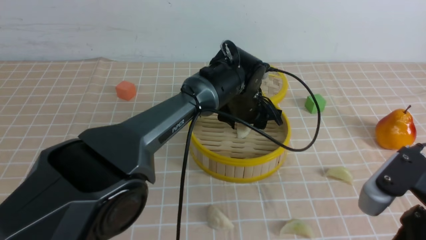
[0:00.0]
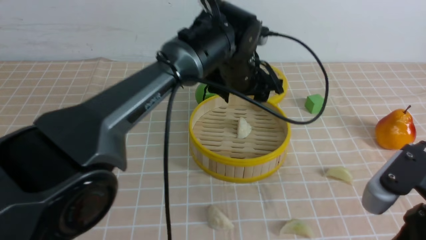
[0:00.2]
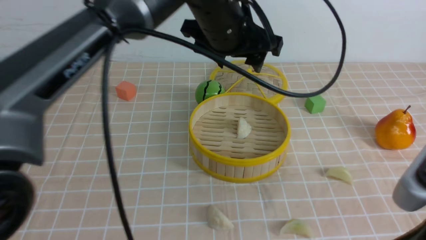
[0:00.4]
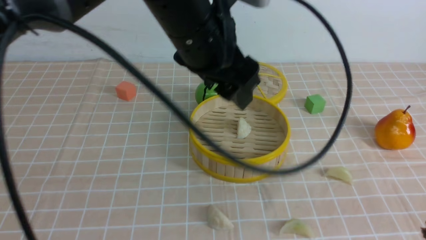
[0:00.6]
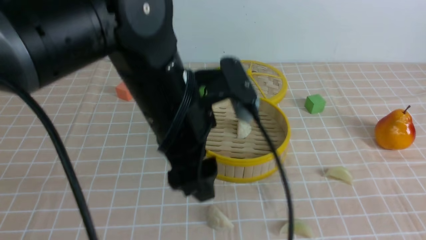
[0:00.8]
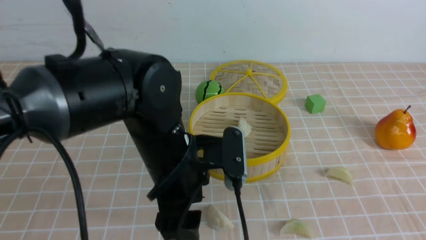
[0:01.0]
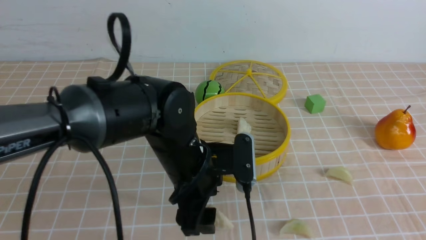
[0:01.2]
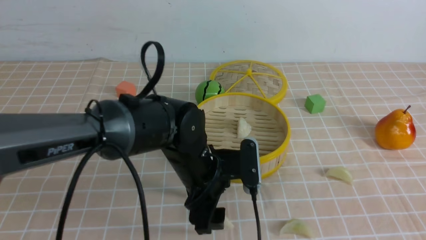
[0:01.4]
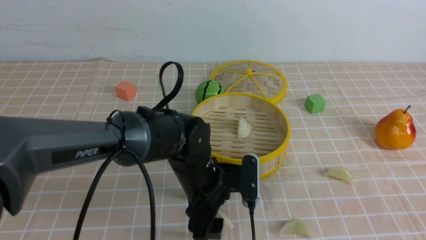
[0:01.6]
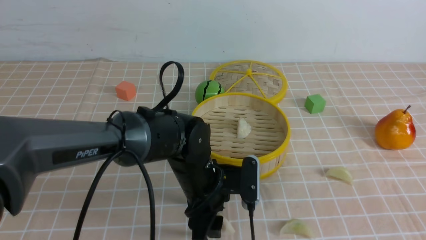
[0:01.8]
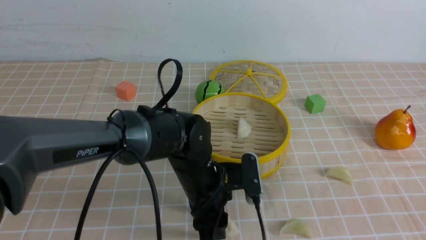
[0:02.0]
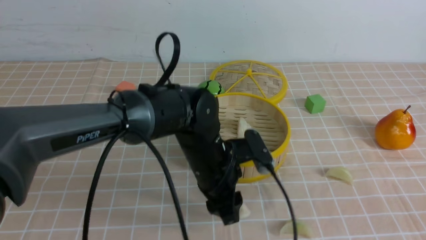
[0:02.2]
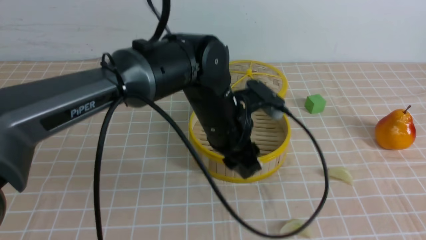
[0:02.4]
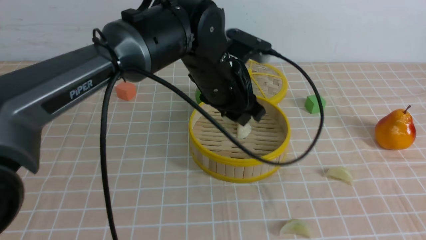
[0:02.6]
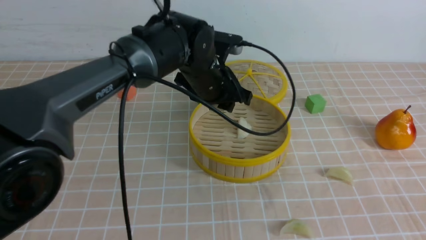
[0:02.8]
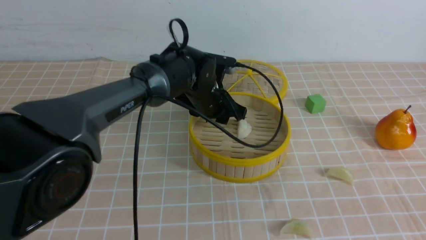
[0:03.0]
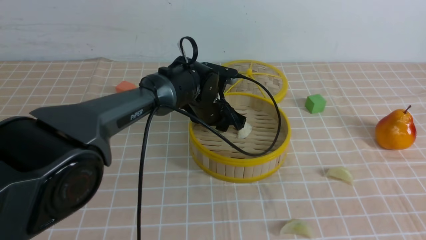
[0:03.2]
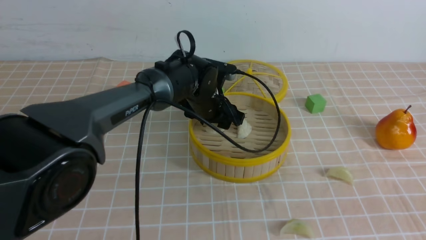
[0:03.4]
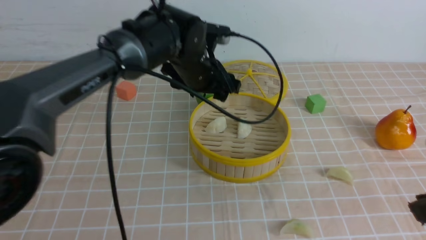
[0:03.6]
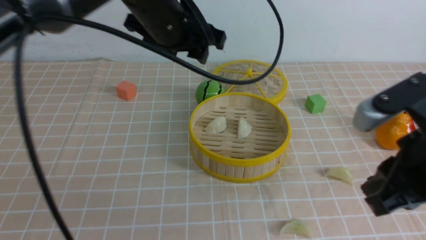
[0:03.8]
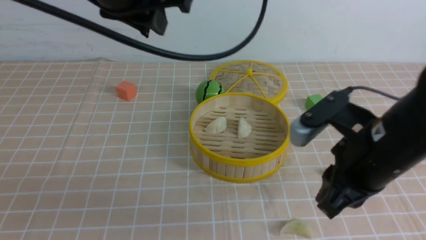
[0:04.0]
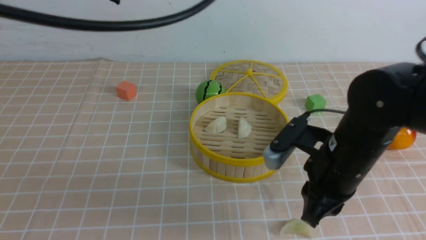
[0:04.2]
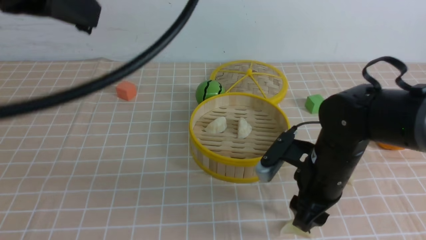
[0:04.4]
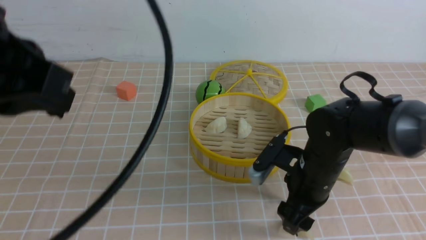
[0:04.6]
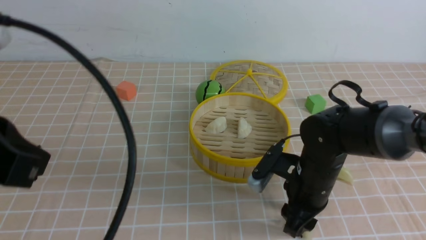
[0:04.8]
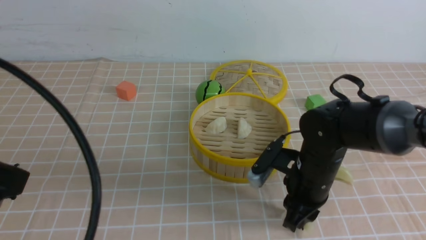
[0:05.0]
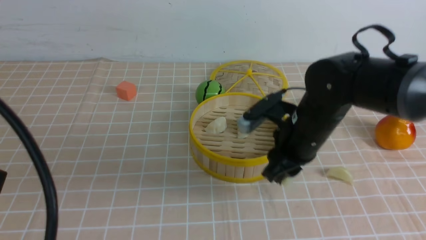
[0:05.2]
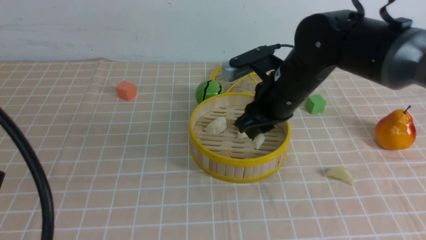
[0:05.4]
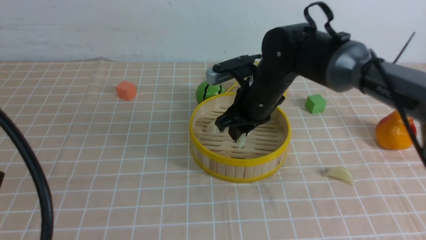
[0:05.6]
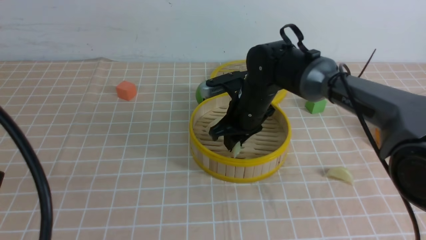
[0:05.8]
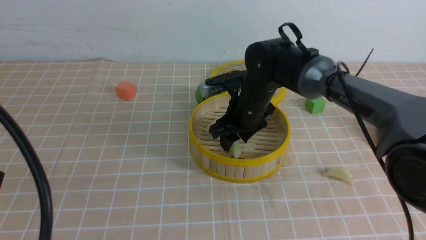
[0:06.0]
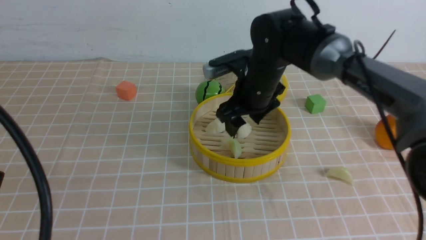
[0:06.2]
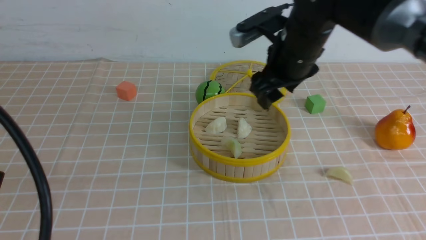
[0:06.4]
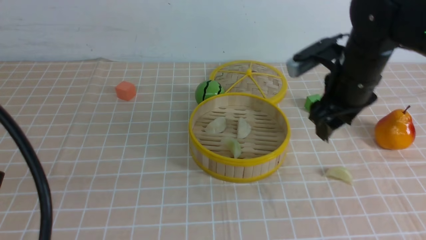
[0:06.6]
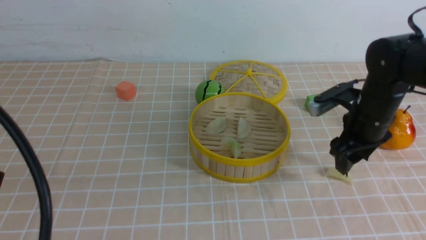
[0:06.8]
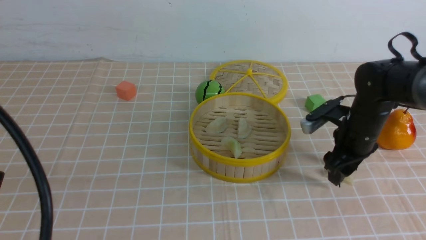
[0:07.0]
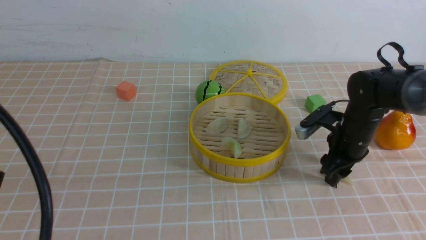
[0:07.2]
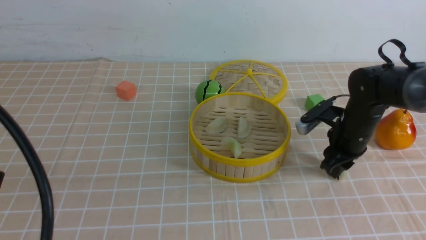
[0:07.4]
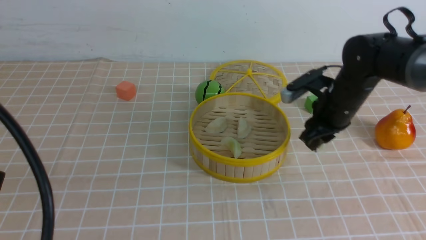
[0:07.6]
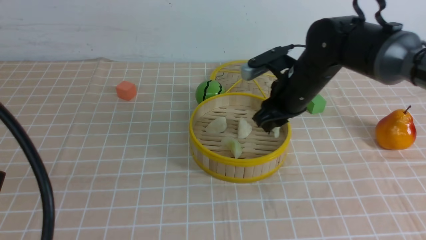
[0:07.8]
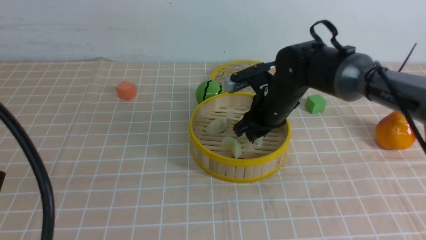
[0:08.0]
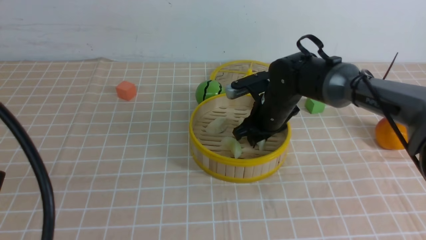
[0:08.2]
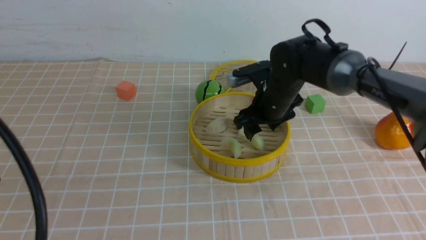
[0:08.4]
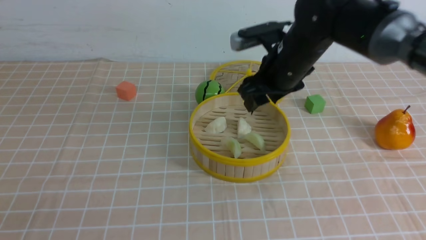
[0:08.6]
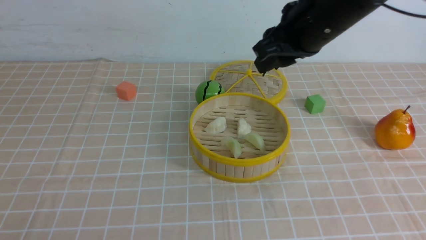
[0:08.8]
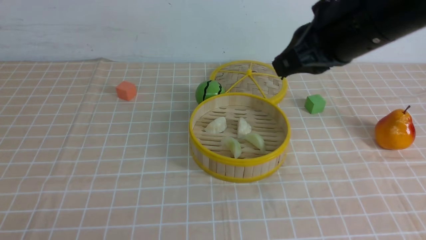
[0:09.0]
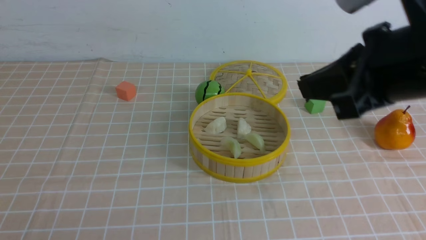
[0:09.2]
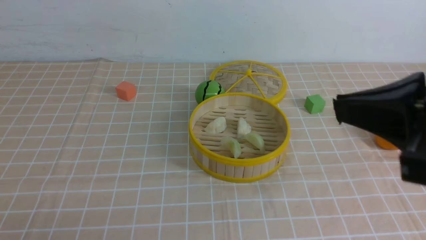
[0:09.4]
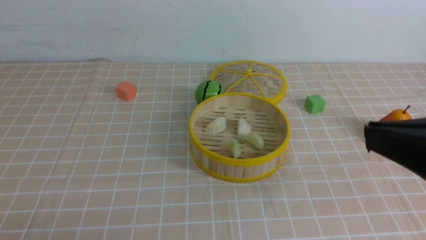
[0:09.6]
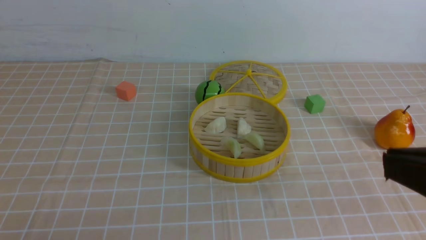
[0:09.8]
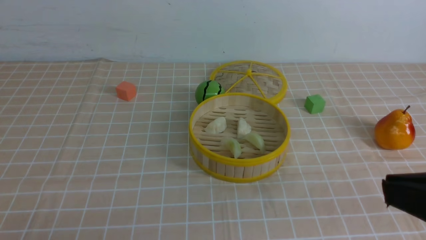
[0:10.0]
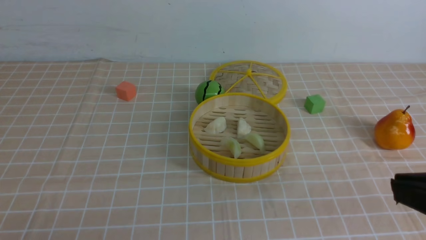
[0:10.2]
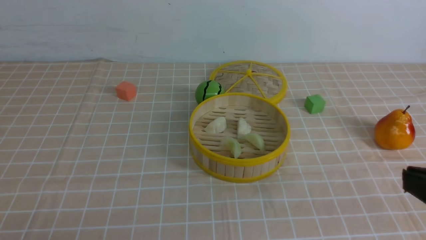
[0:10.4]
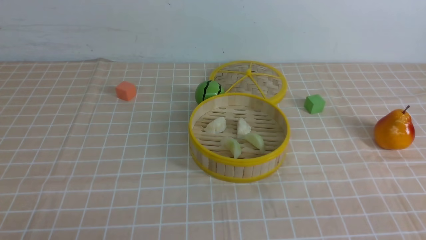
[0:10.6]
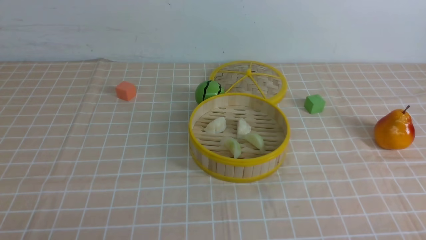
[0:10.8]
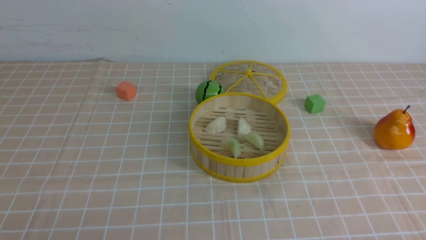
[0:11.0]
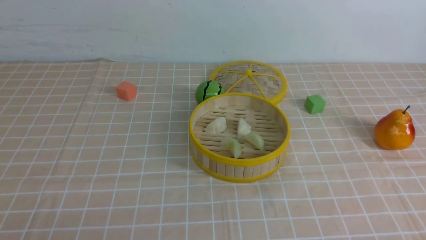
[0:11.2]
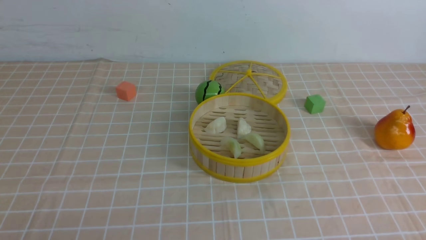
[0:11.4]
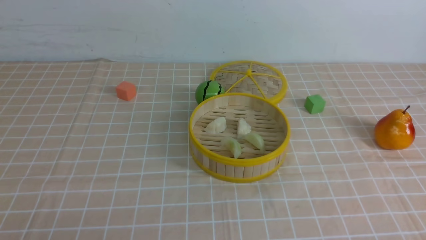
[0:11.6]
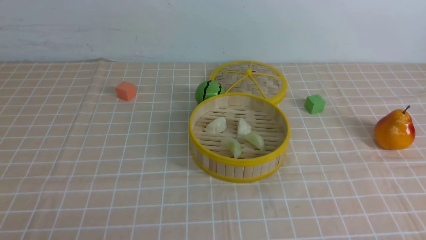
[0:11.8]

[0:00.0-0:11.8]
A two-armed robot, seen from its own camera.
Task of the whole recording: put the dumplings into the steamer on the table with the brown tablecloth.
Step, 0:00.4 to 0:01.8: use the left arm to grab a dumpling.
Step, 0:02.0 to 0:03.4: use the left arm to put the dumpling into the steamer.
Step, 0:03.6 to 0:04.6: use the right arm to grab a dumpling.
Step, 0:04.8 to 0:06.2: use the right arm to put the dumpling into the steamer.
Step, 0:06.4 to 0:07.2: use the right arm to grab a dumpling.
Step, 0:07.4 to 0:08.4: use the right arm to put the dumpling into the steamer.
0:00.0 to 0:01.4: The left gripper travels backward and to the left by about 15 cm, and travels upward and back again, some 15 cm each way; the right gripper moves backward, upward and to the right, about 10 cm.
0:01.4 to 0:03.0: The left gripper is displaced forward by some 15 cm, and closes its fingers.
0:03.0 to 0:04.4: The left gripper shifts roughly 40 cm upward, backward and to the left, and closes up; the right gripper goes some 30 cm forward, downward and to the left, and opens its fingers.
0:04.4 to 0:06.0: The right gripper travels forward and to the left by some 15 cm, and closes, then opens again. Meanwhile the left gripper is displaced backward, downward and to the left by some 15 cm.
0:06.0 to 0:07.4: The right gripper shifts about 15 cm to the right.
0:07.4 to 0:08.8: The right gripper shifts roughly 20 cm upward and to the left, while the left gripper moves downward and backward, some 10 cm.
0:08.8 to 0:10.4: The left gripper travels downward by roughly 5 cm; the right gripper shifts about 30 cm backward and to the right, and closes its fingers.
0:10.4 to 0:11.8: The right gripper travels downward by roughly 15 cm.

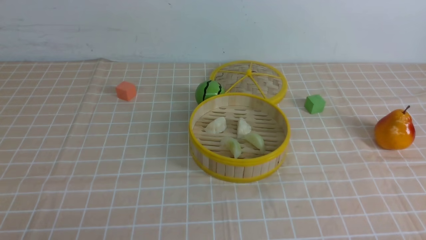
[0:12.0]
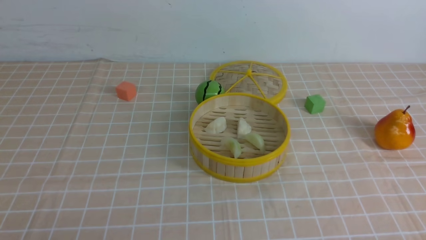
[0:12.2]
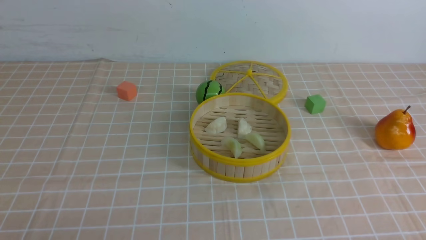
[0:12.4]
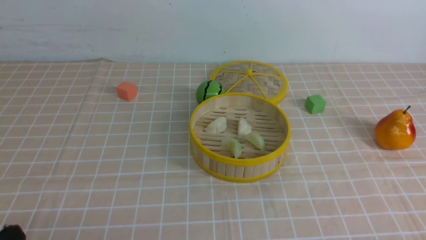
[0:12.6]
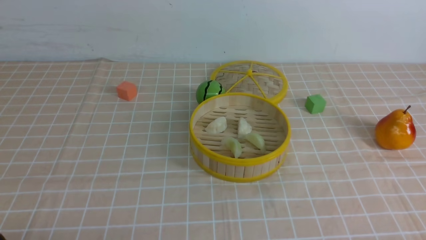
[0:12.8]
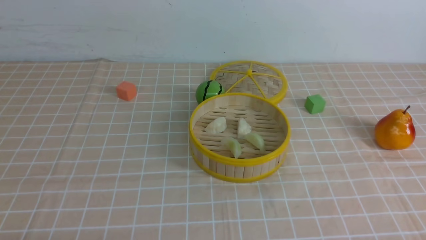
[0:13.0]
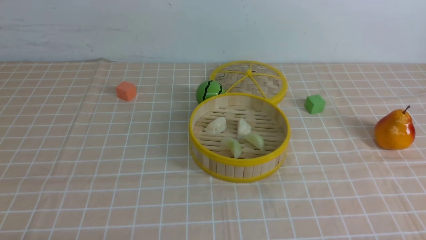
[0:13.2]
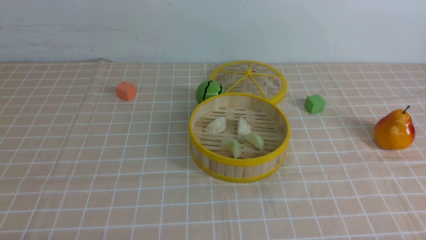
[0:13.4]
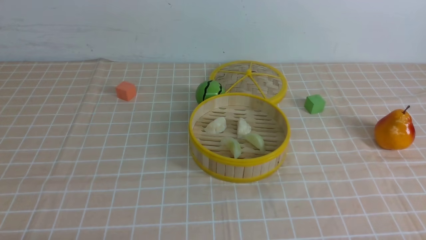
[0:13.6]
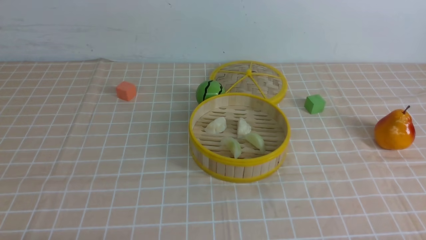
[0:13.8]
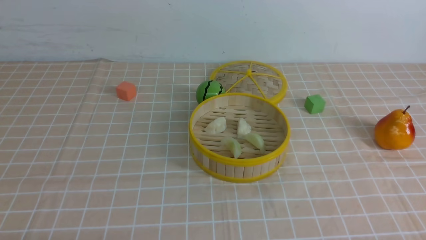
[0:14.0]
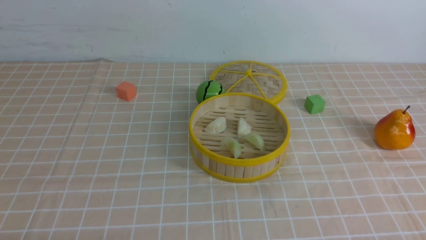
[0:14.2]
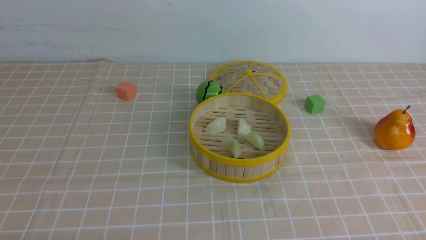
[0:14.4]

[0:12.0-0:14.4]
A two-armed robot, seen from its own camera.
Task of the whole recording: put the dumplings into the steamer on the table with the brown tablecloth.
0:13.2 to 0:14.4: Neither gripper changes place.
